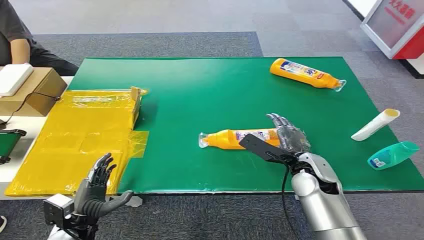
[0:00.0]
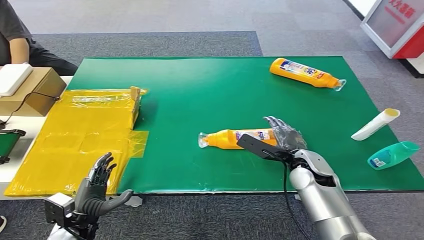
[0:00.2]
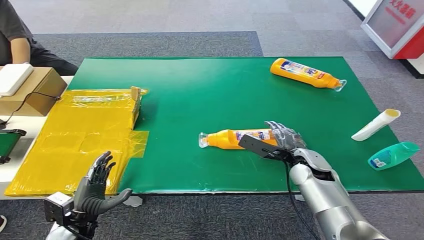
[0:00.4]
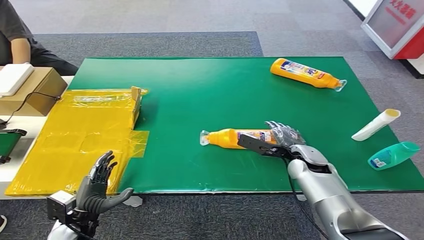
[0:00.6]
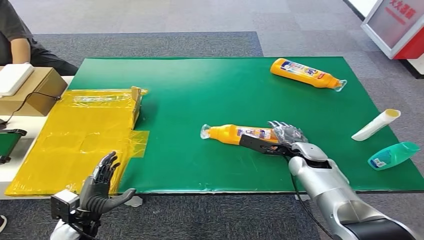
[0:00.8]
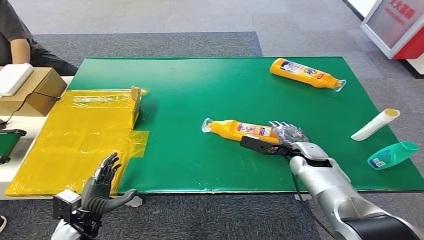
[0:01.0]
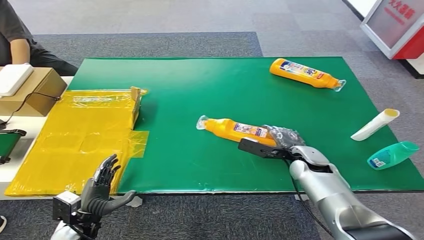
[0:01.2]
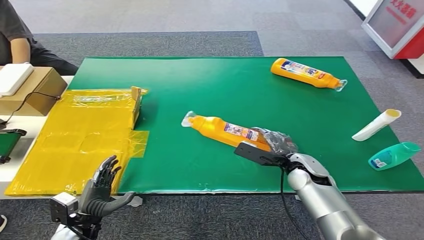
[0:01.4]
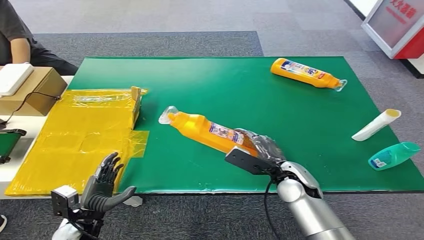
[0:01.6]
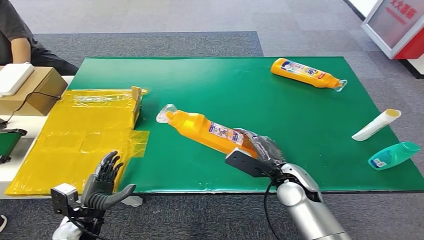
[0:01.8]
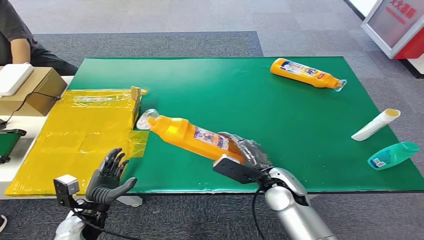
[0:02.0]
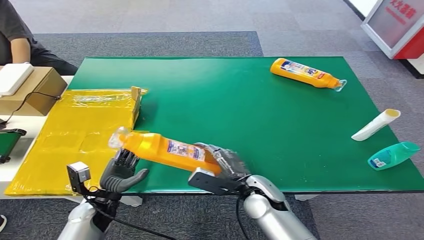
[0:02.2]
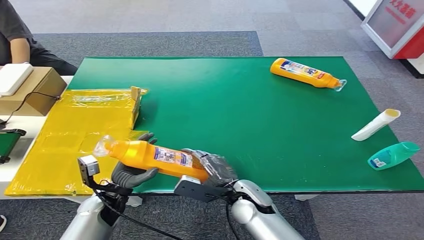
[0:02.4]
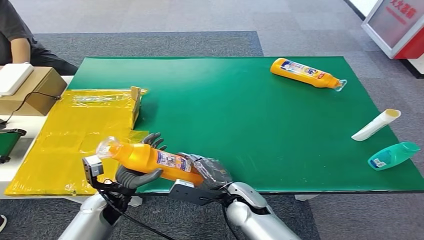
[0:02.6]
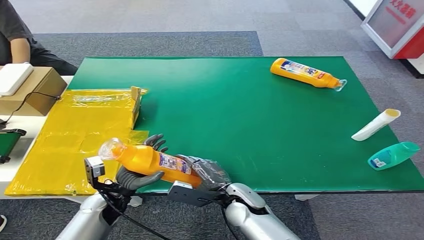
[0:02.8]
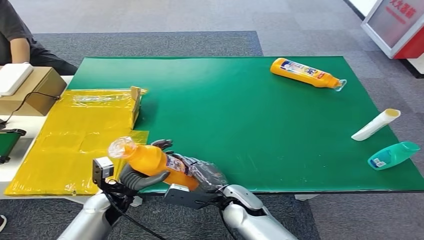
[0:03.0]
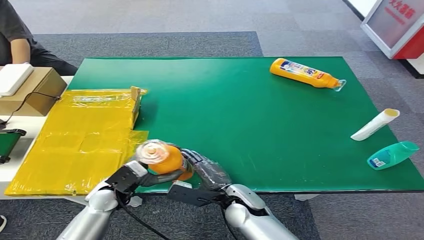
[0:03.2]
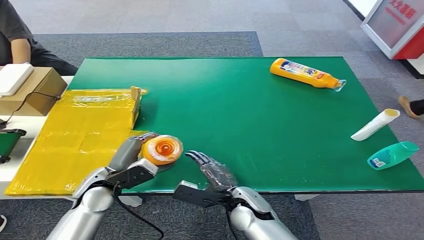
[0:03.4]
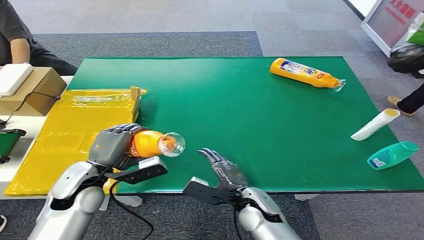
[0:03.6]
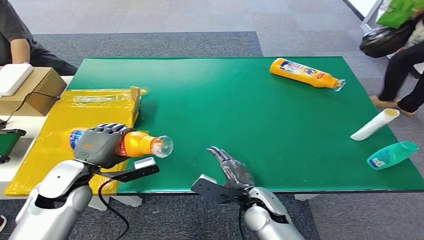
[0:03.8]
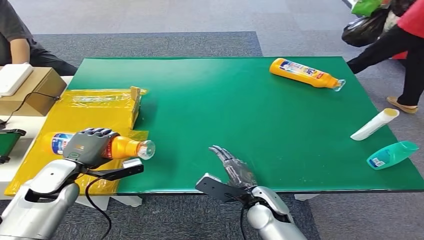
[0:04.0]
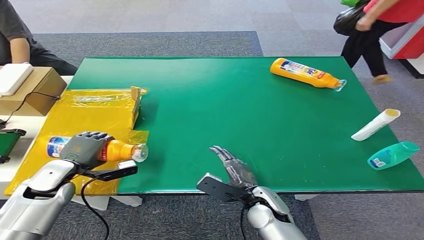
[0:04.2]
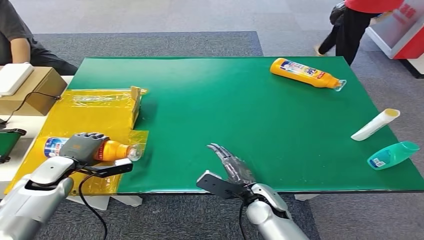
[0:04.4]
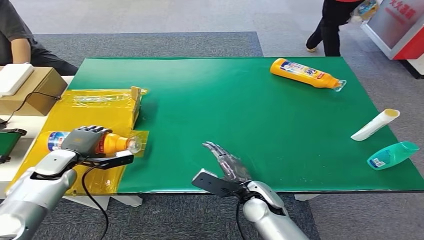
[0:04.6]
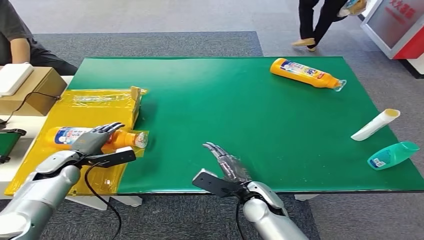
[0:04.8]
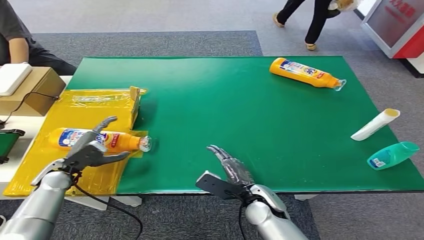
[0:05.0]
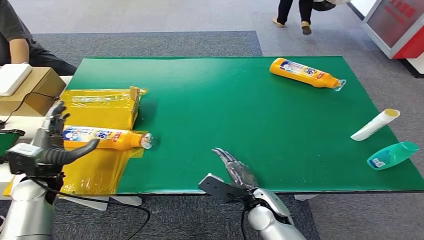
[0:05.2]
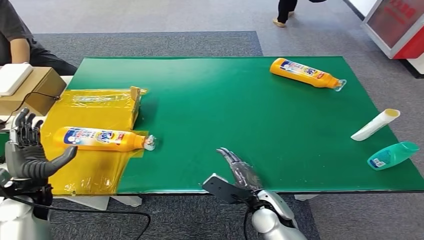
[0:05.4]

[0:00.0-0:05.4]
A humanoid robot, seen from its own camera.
Step, 0:00.0 to 0:02.0: Pick up the bottle from the table.
Step, 0:02.4 to 0:05.4: Turn the bottle to the front side.
0:01.4 to 0:02.8: The left hand travels forward and to the right by approximately 10 cm; the right hand is displaced to the left and backward by some 20 cm.
